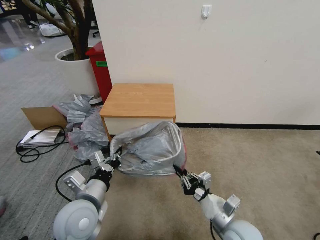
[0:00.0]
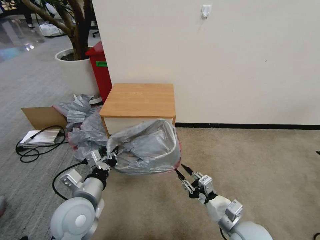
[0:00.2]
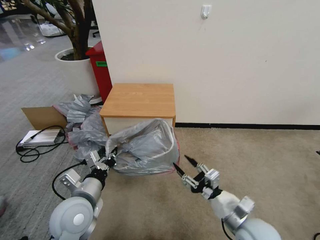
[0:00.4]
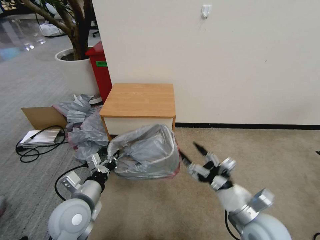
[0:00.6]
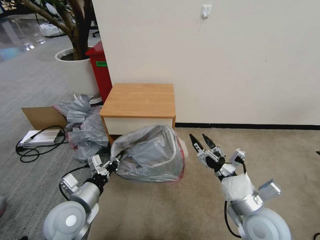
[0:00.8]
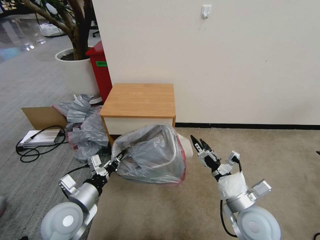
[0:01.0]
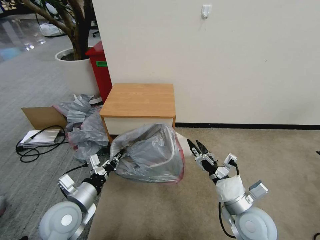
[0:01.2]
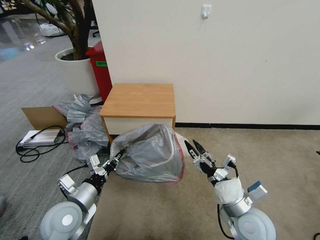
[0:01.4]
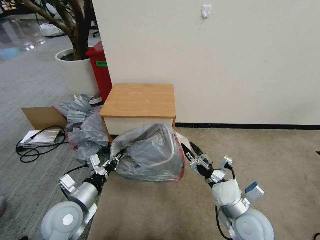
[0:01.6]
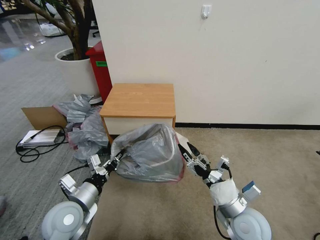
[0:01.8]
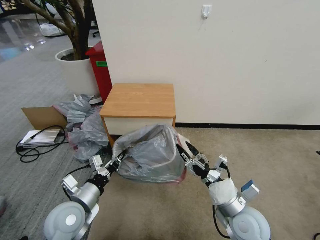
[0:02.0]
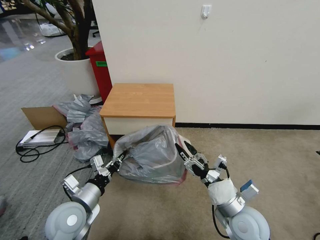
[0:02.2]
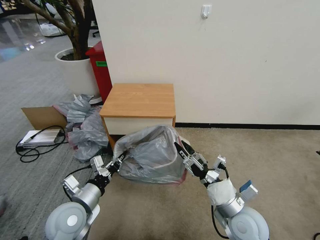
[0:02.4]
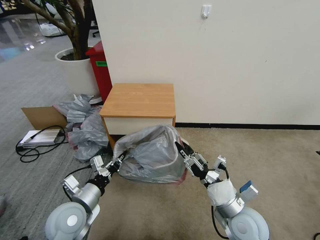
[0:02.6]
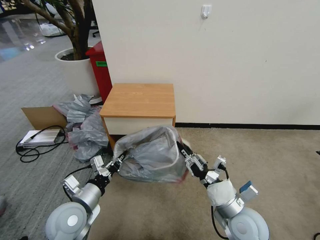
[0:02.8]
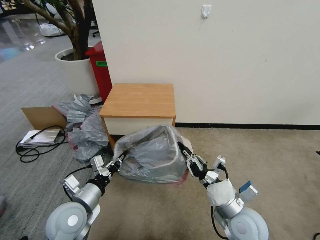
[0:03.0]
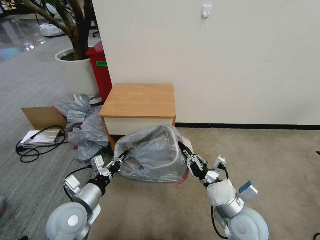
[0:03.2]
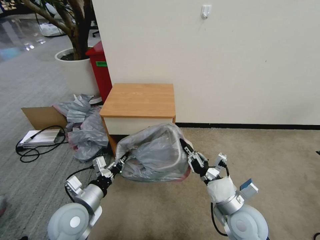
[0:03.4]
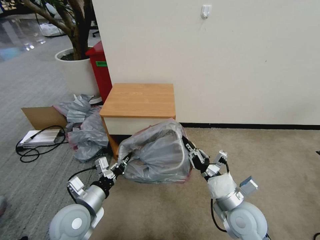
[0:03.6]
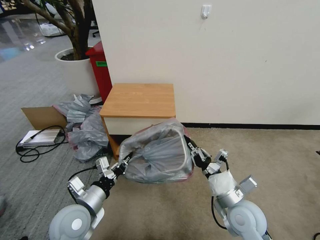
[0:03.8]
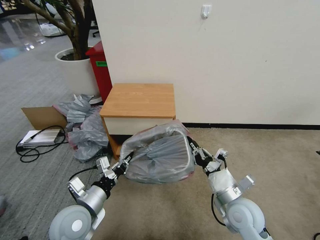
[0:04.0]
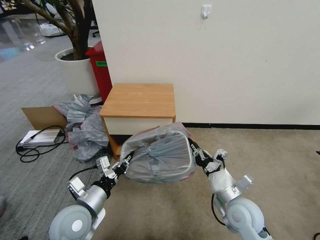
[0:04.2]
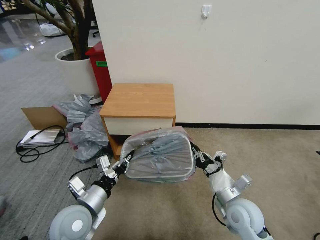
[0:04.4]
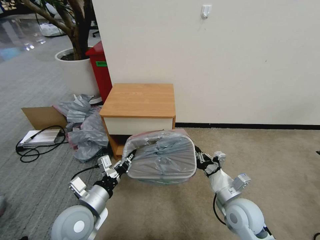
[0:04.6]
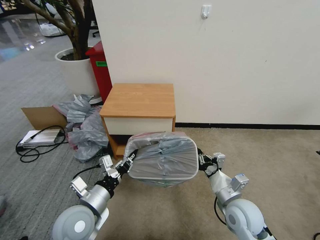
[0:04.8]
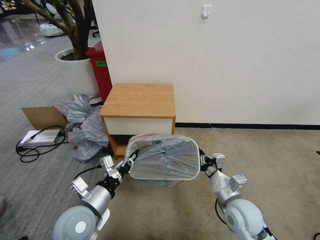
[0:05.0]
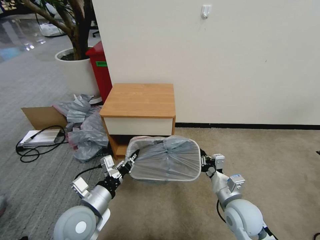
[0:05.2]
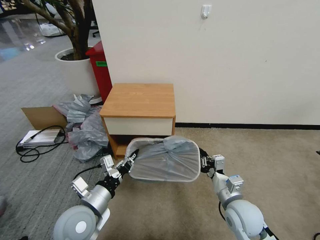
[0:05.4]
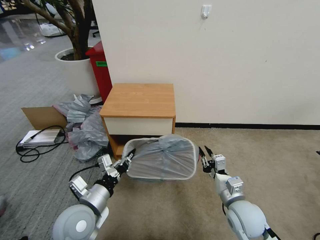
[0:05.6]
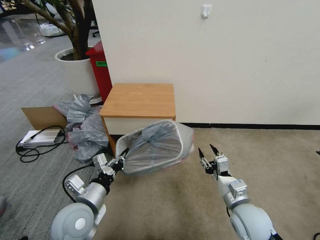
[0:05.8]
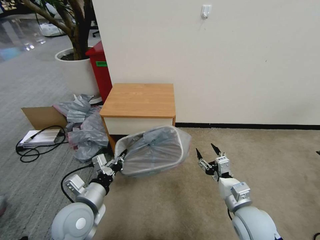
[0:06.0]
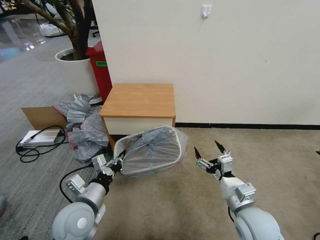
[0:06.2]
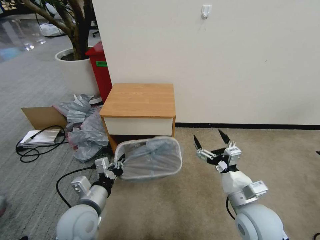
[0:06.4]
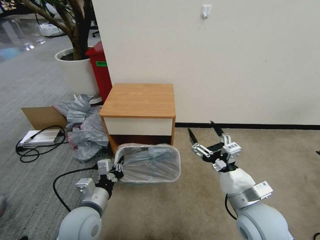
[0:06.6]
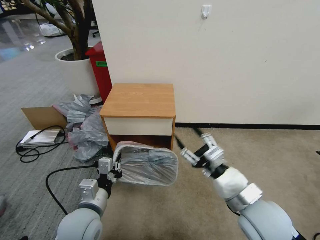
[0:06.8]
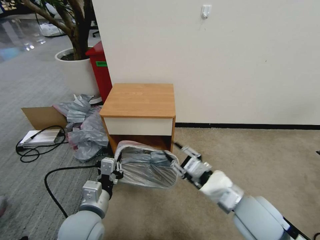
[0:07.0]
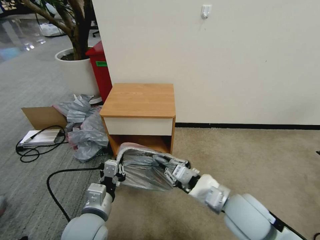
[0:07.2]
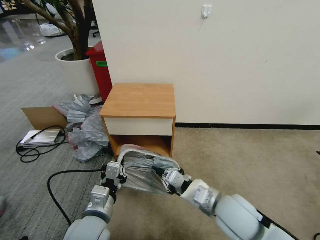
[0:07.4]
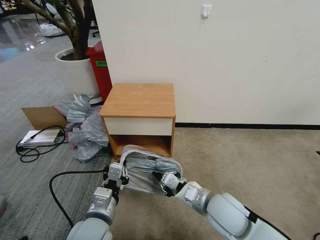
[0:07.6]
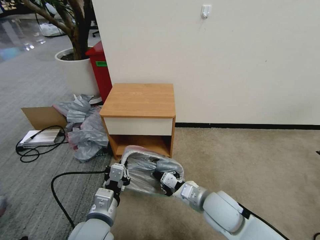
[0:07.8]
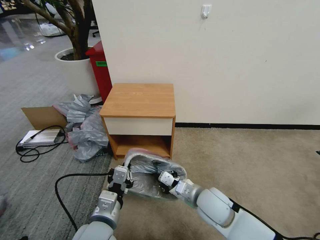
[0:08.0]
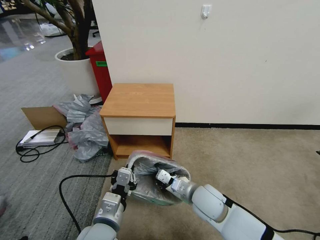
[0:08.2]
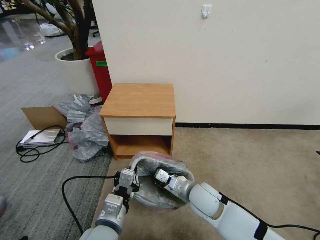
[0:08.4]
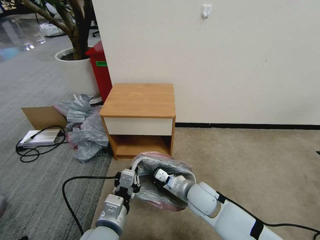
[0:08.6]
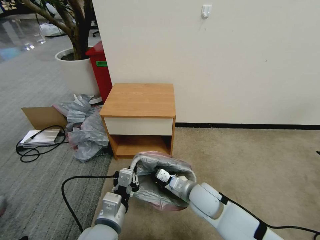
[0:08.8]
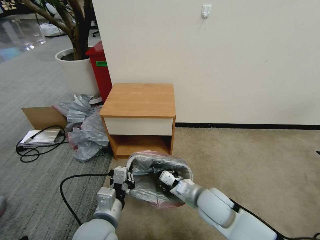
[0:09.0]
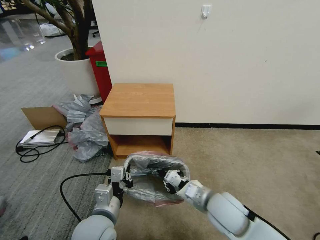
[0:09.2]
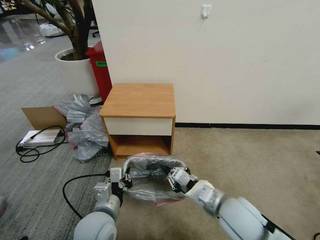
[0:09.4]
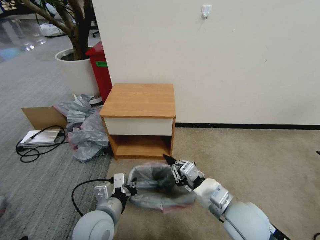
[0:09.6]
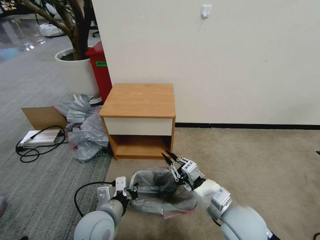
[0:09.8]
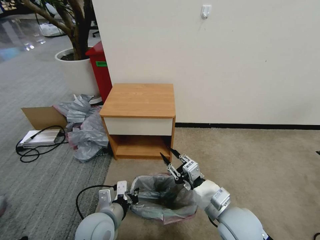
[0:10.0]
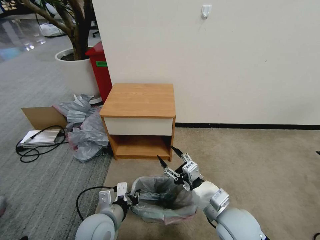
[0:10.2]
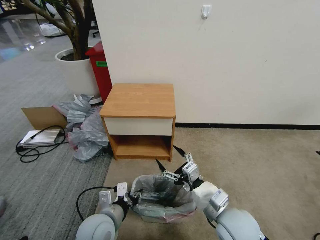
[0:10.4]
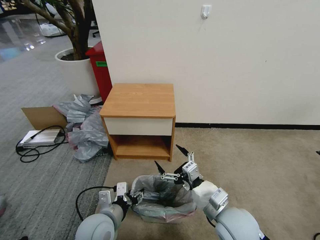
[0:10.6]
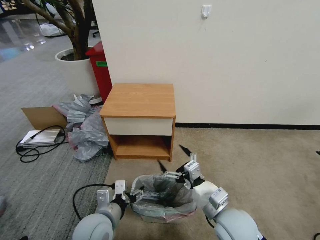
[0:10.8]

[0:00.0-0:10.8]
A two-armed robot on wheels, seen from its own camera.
Task of the whole recording: Pick up the garbage bag from the table and place it over the trash can.
0:00.0 to 0:01.6: The right gripper opens up; the left gripper is displaced to the left by about 5 cm.
0:01.6 to 0:03.0: The right gripper closes its fingers.
0:04.6 to 0:06.2: The right gripper opens up.
0:06.2 to 0:07.8: The left gripper shifts roughly 5 cm to the right, while the right gripper shifts some 10 cm to the left, goes upward and returns, approximately 10 cm each way, and closes its fingers.
0:09.2 to 0:10.8: The left gripper opens. Meanwhile the right gripper opens up.

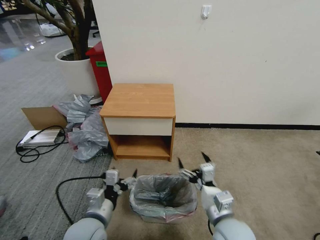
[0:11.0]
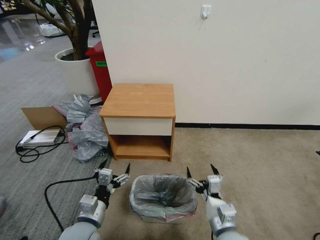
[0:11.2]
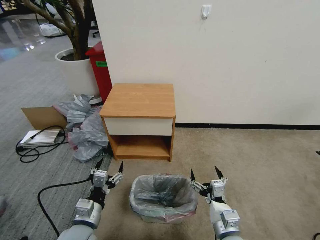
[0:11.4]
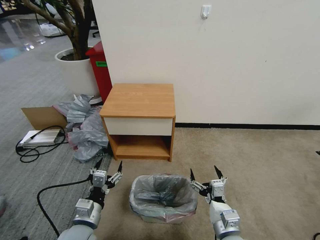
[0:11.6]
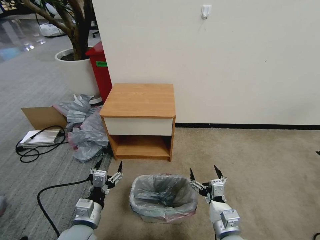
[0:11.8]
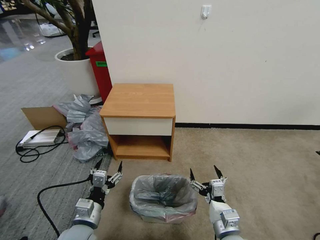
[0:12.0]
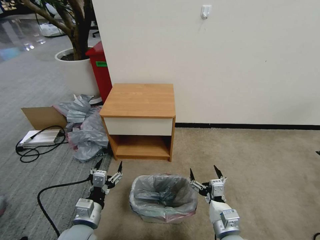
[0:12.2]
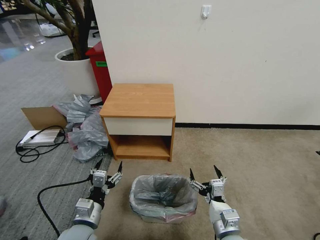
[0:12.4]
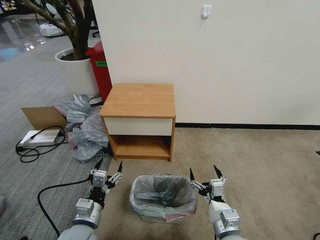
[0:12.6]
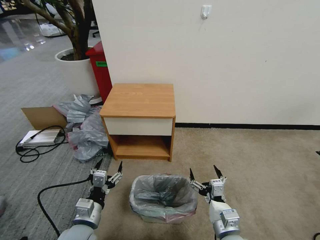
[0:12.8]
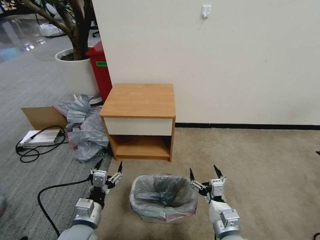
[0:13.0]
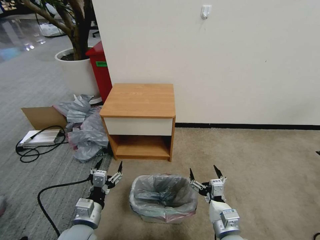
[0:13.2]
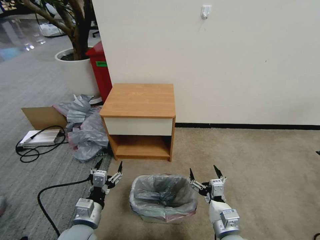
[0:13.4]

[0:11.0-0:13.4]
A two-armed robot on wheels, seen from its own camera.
Task of the whole recording: Pick up the garbage bag from the table and place it over the trash can.
0:11.0 to 0:12.2: The left gripper ends up approximately 5 cm from where it was. Meanwhile the right gripper heads downward, covering some 5 cm.
0:12.2 to 0:13.4: Neither gripper changes place.
